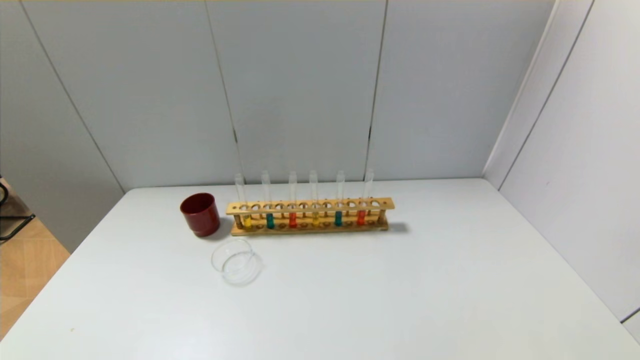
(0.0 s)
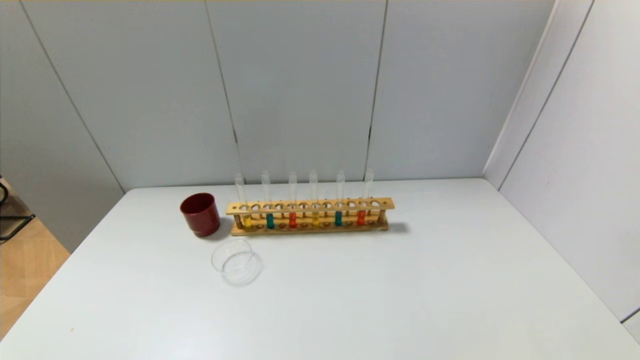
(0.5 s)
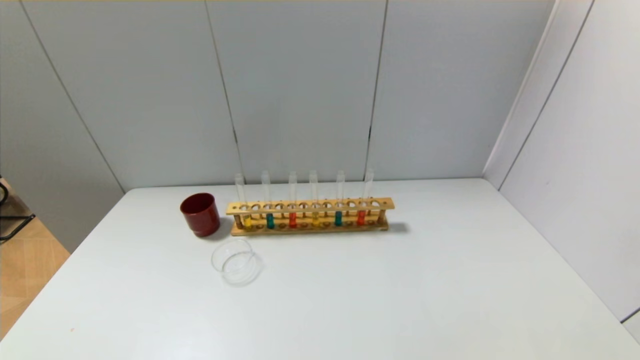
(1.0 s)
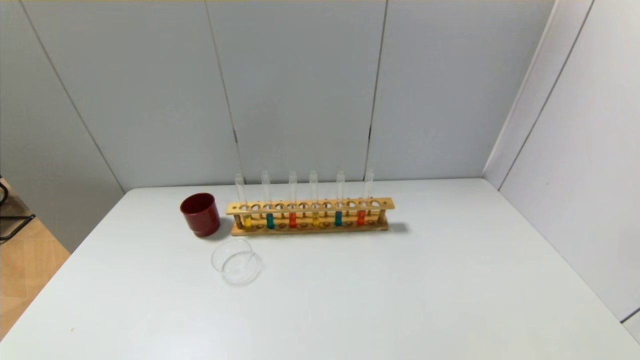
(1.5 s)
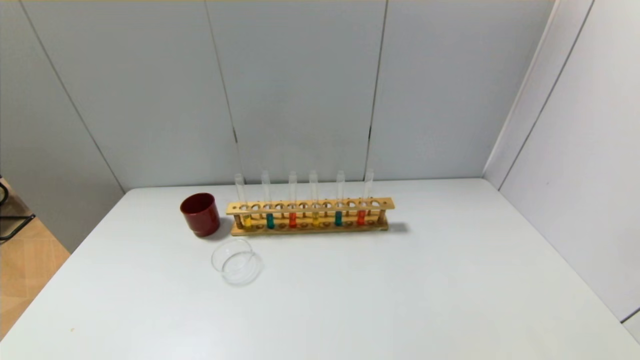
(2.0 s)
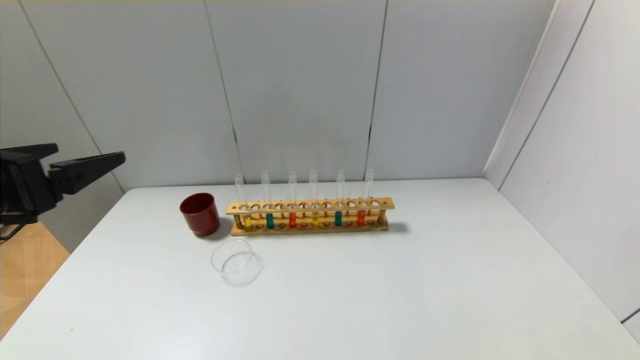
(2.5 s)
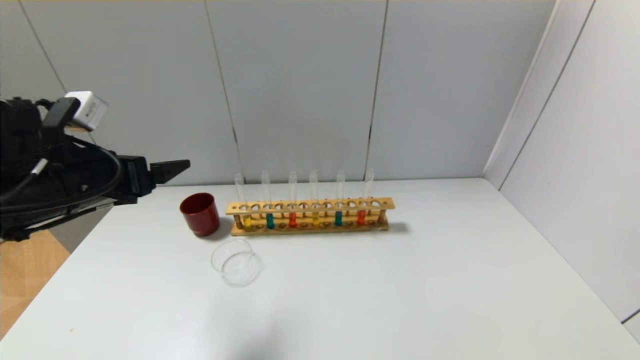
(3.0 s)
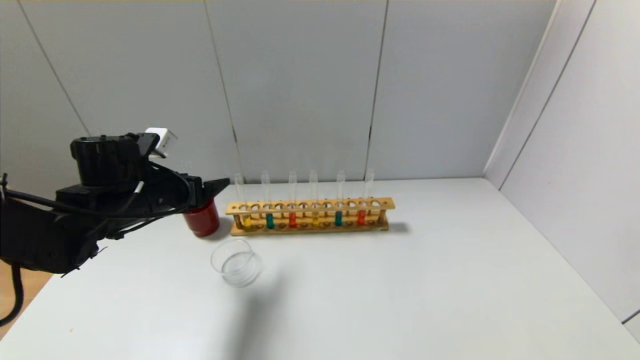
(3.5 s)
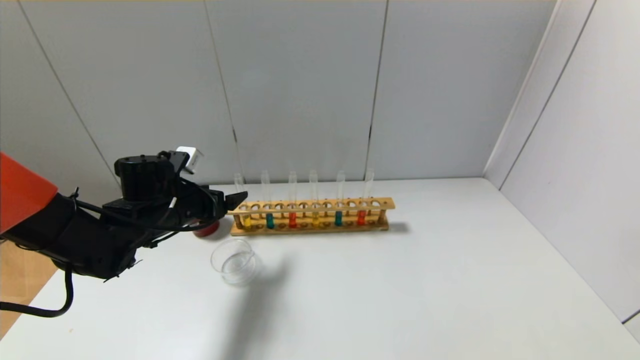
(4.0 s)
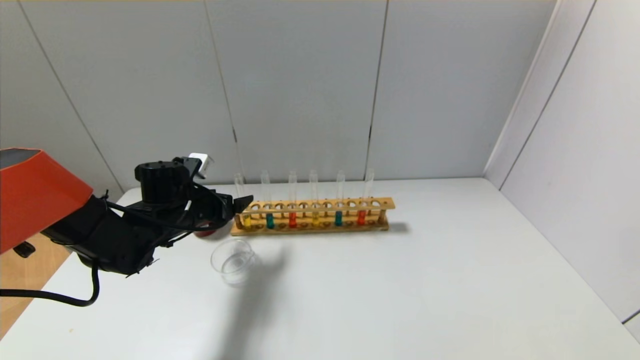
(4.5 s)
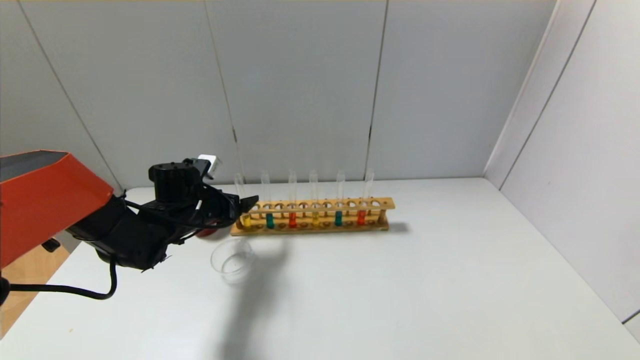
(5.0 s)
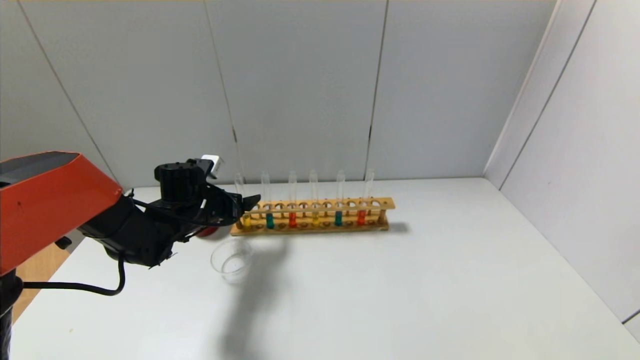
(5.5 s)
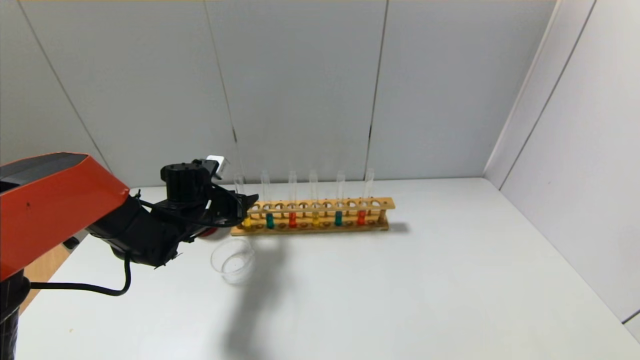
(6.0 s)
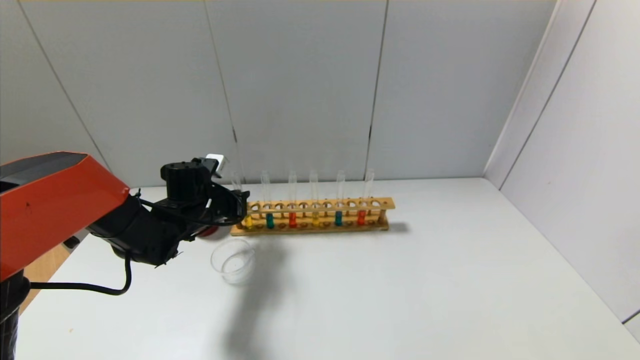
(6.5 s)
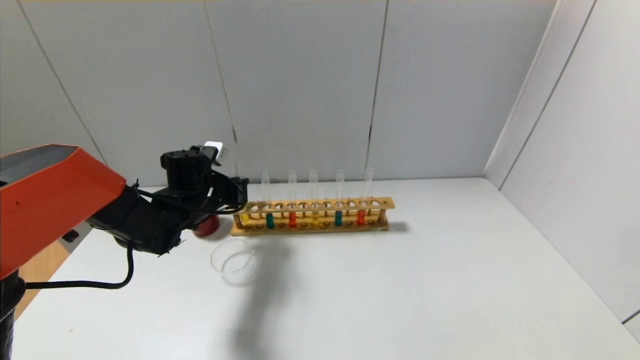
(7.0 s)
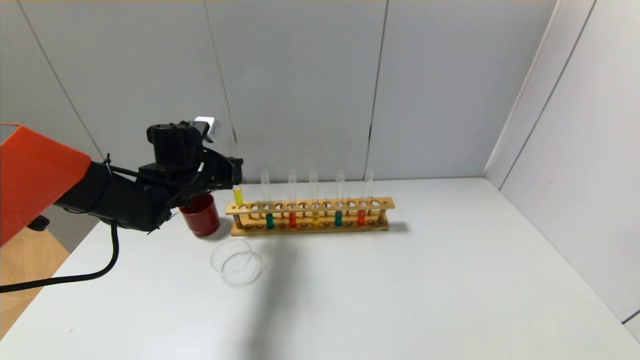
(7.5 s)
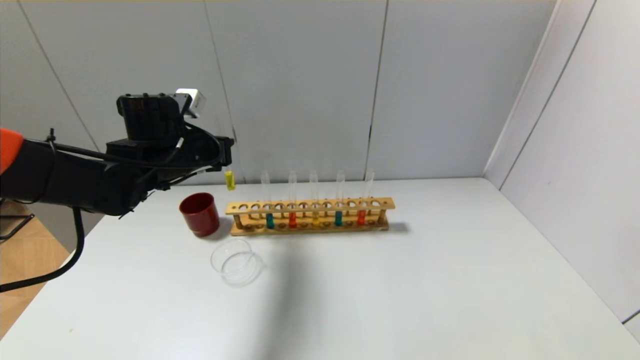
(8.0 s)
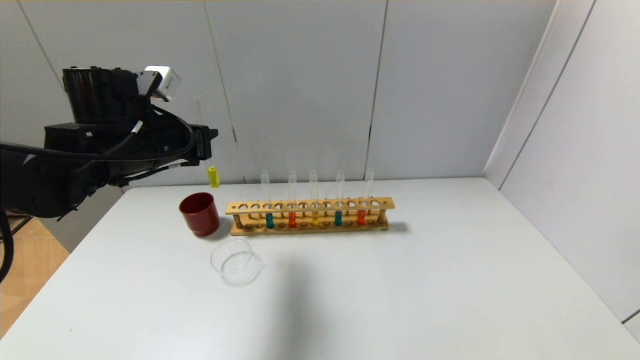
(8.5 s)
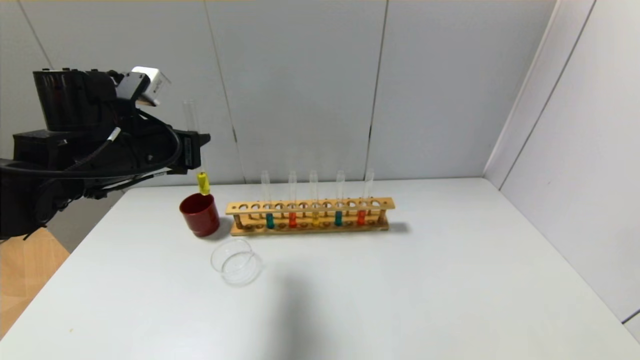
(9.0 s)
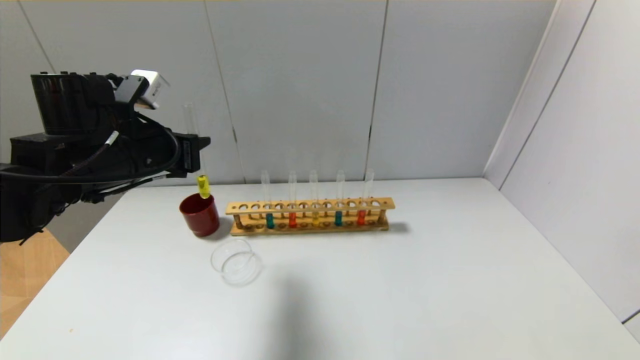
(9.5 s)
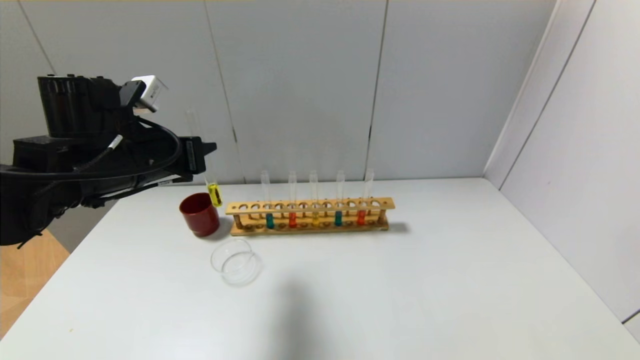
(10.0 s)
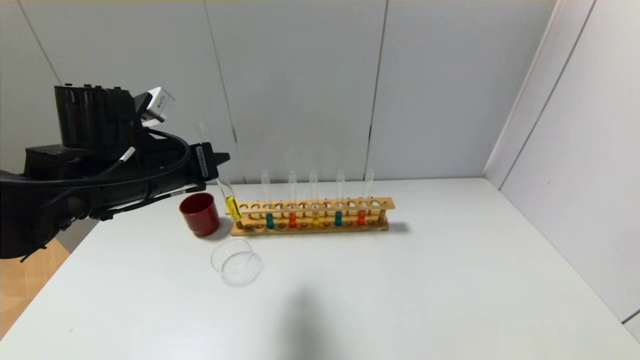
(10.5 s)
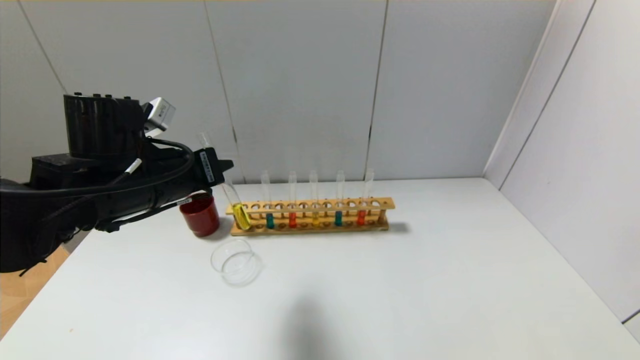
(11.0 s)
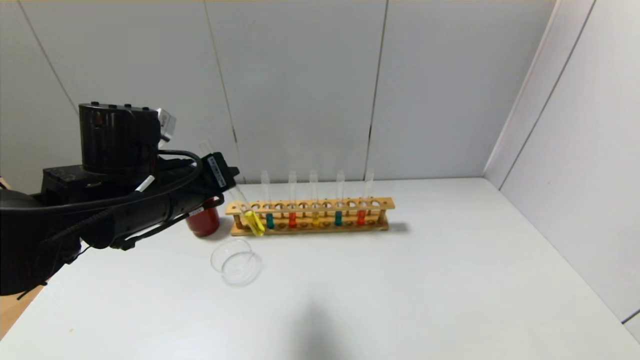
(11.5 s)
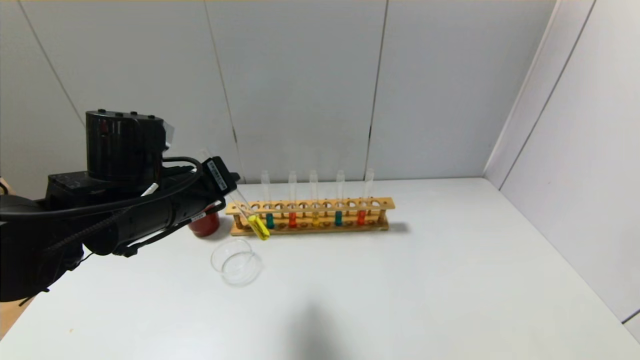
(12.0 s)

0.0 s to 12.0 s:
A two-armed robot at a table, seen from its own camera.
Step, 0.0 to 6.0 s: Grasp the yellow reagent with the left gripper.
2.0 to 4.0 s: The left gripper travels forward and downward by roughly 35 cm.
4.0 to 6.0 s: The left gripper changes place by approximately 5 cm, and closes its fingers.
6.0 to 8.0 s: The left gripper goes roughly 15 cm upward, and closes.
8.0 to 10.0 s: The left gripper moves backward, about 10 cm.
10.0 to 12.0 s: The left gripper changes place by some 5 cm.

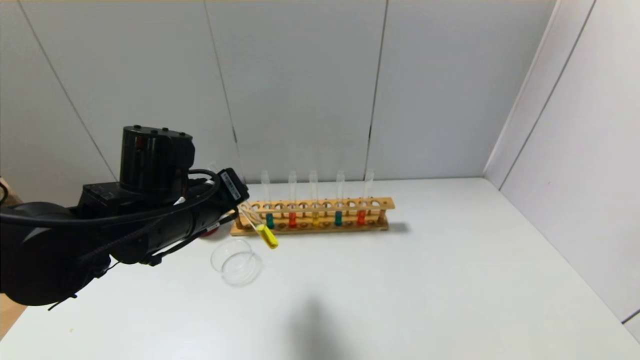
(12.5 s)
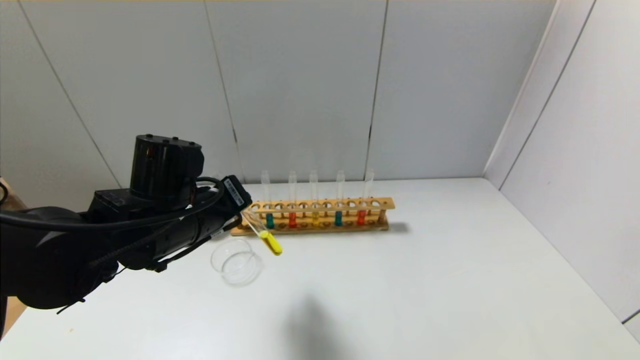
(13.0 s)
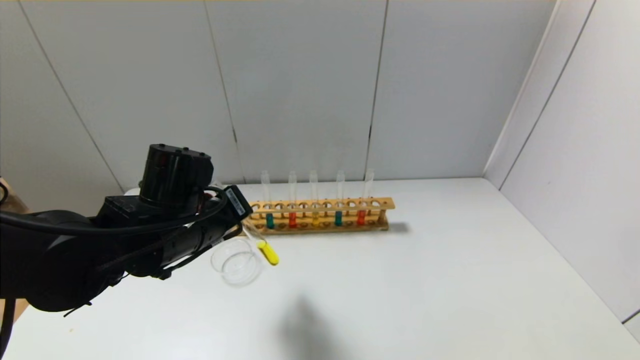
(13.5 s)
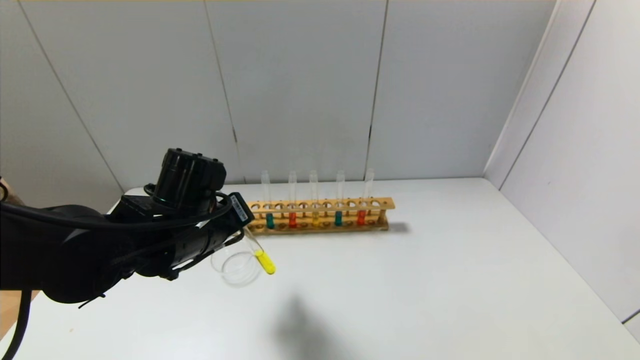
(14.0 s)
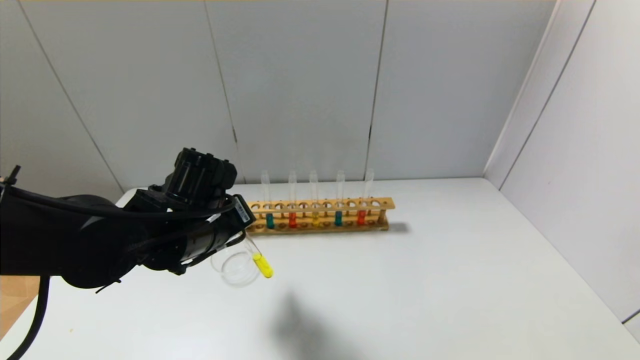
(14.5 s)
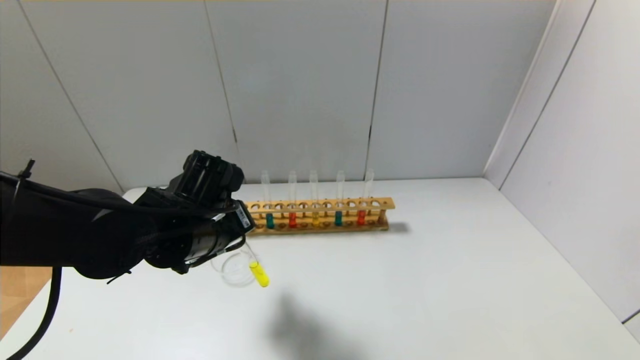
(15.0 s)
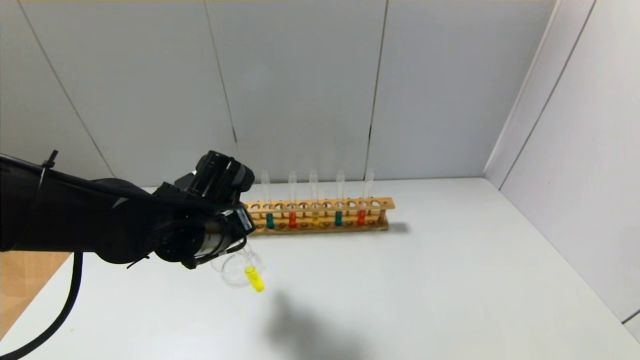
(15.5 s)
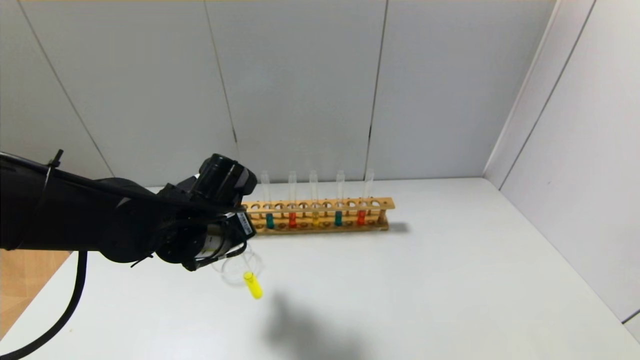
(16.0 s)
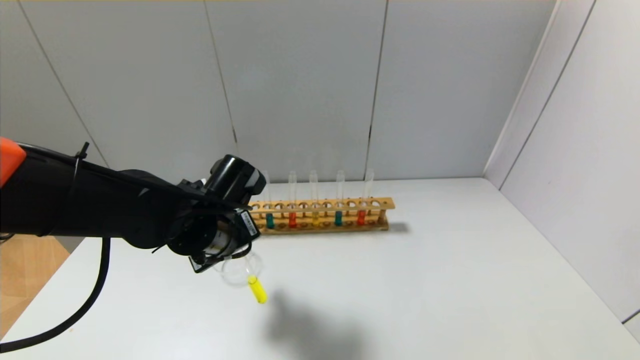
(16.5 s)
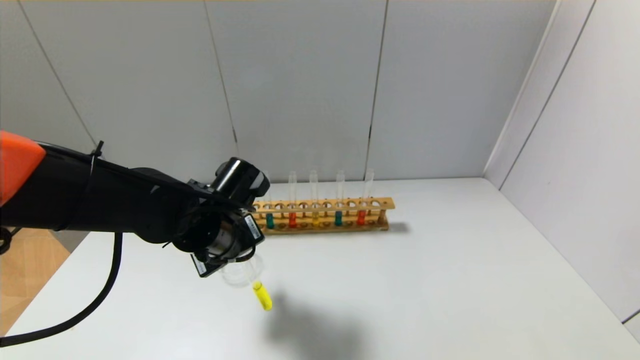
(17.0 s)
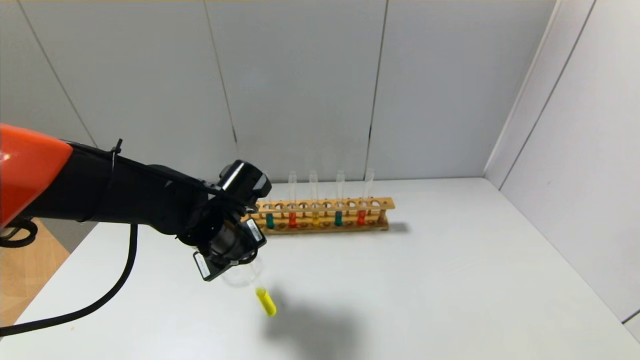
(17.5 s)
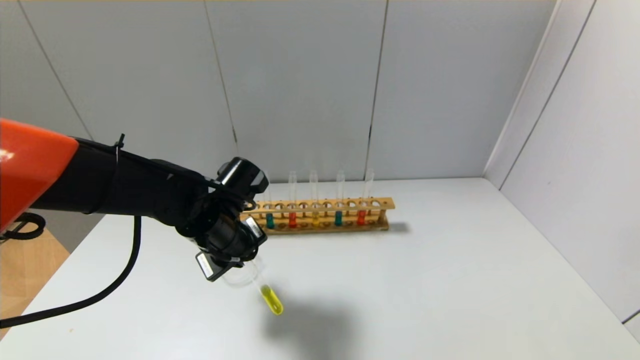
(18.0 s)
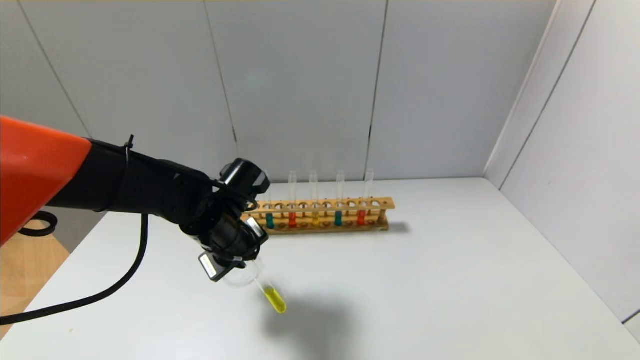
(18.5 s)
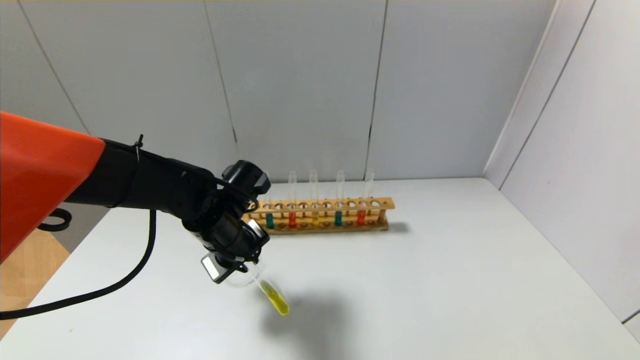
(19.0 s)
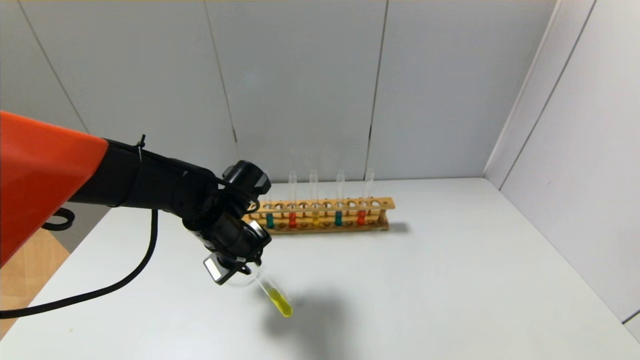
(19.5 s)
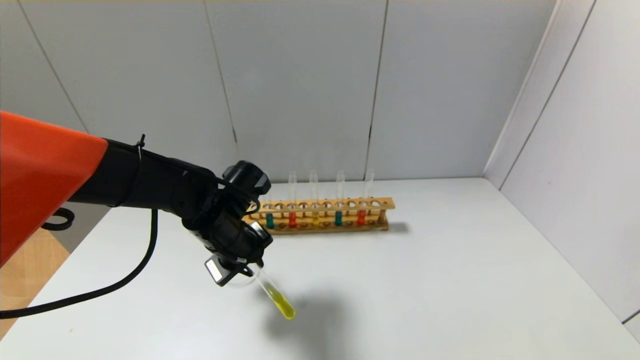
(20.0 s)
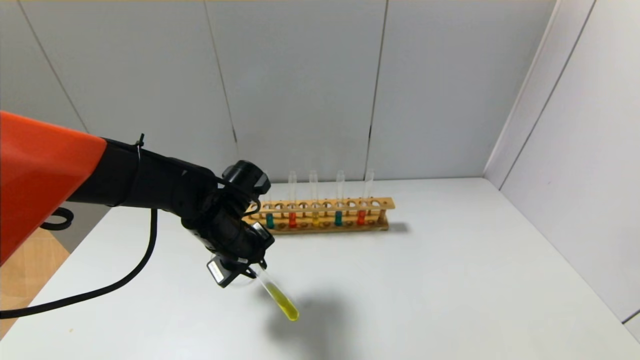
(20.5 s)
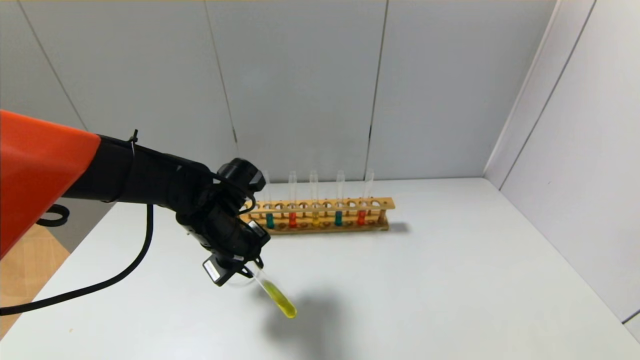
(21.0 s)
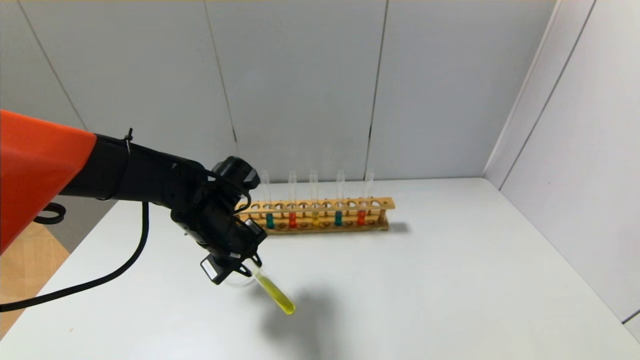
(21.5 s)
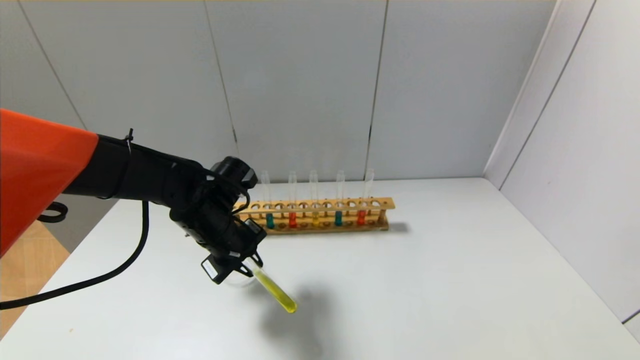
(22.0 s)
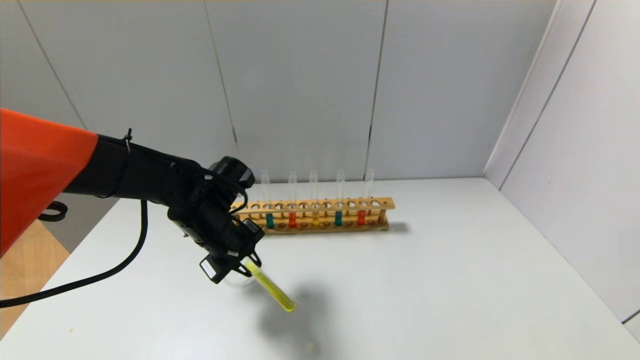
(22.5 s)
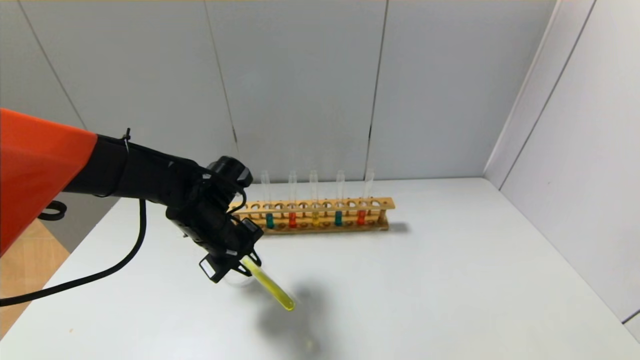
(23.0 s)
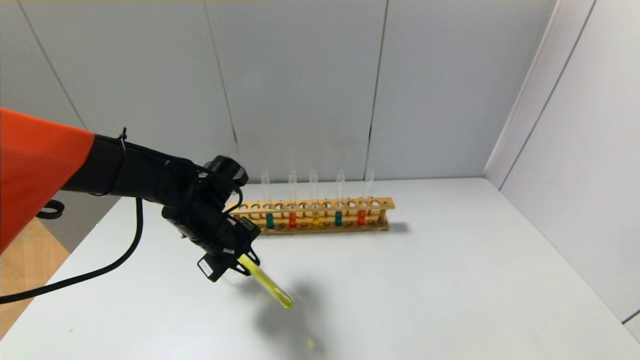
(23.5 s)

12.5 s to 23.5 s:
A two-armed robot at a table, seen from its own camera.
12.5 to 14.5 s: The grippers make only small movements.
14.5 to 16.0 s: The grippers move only a little.
18.0 to 21.5 s: The grippers move only a little.
21.5 to 23.5 s: The grippers stay close to where they were, moving slightly.
